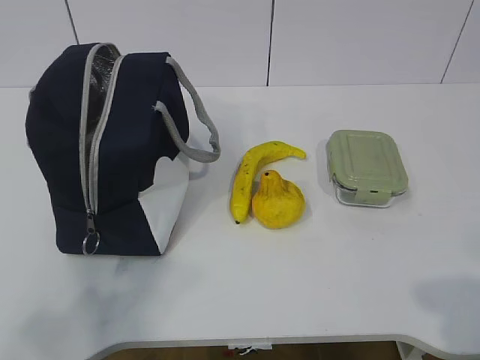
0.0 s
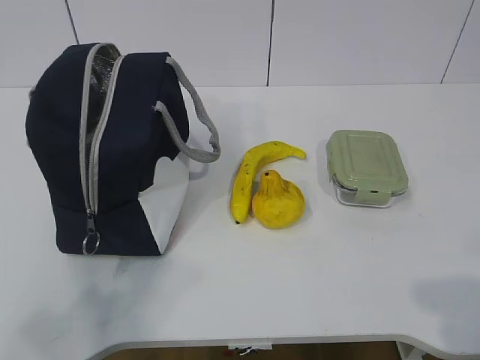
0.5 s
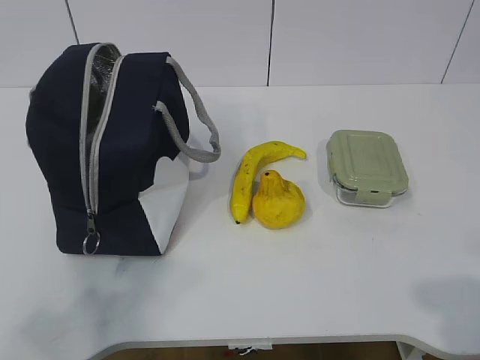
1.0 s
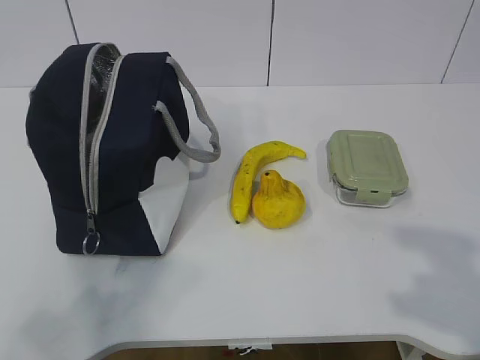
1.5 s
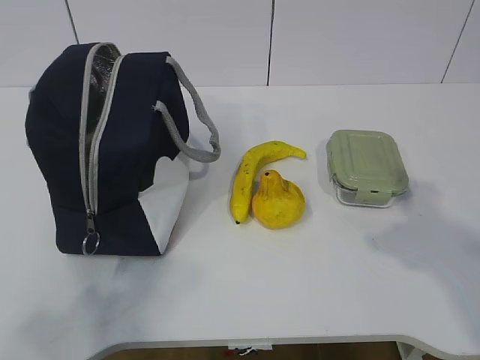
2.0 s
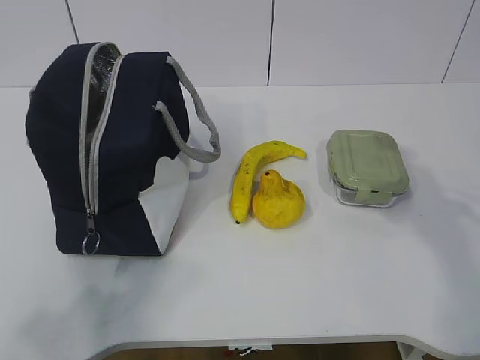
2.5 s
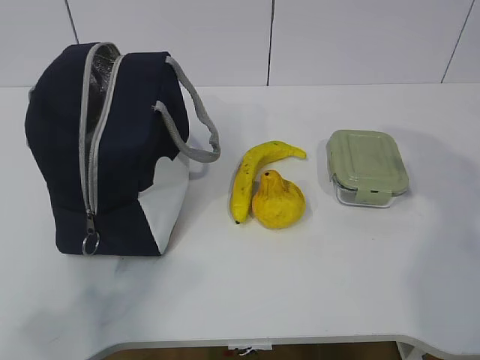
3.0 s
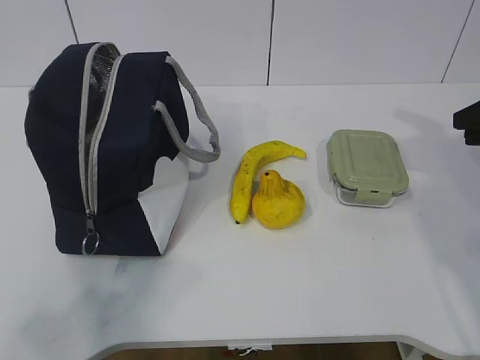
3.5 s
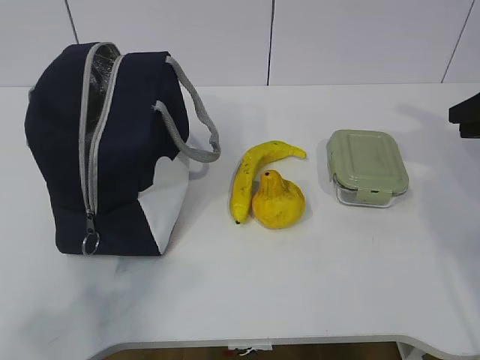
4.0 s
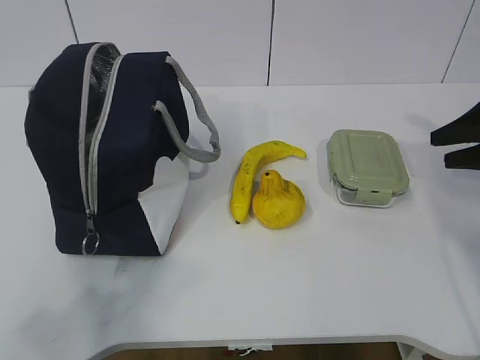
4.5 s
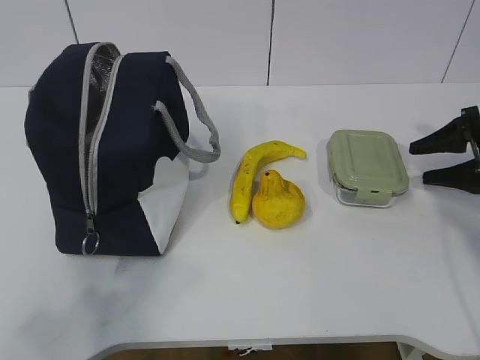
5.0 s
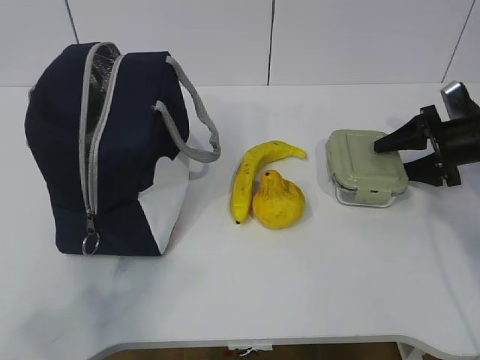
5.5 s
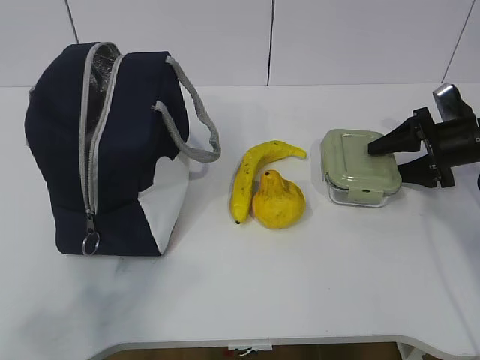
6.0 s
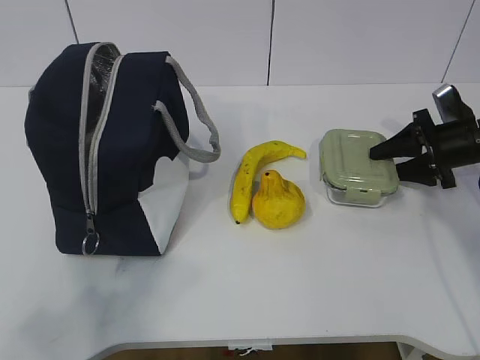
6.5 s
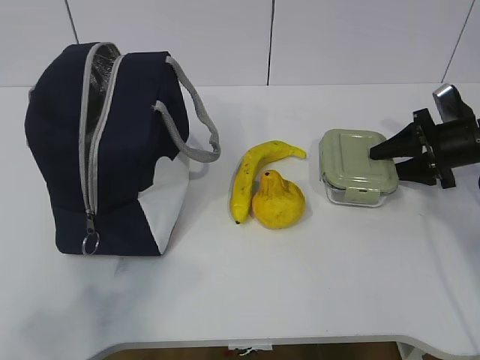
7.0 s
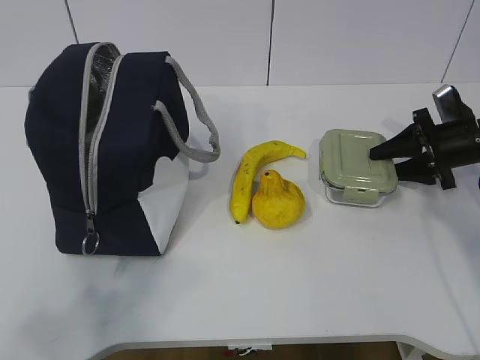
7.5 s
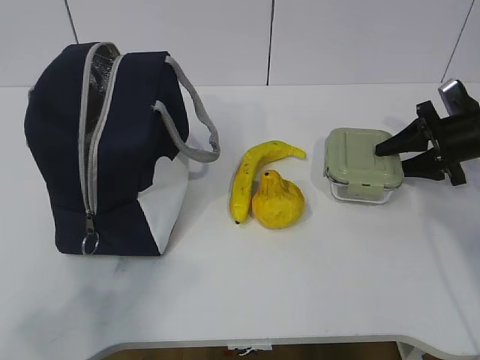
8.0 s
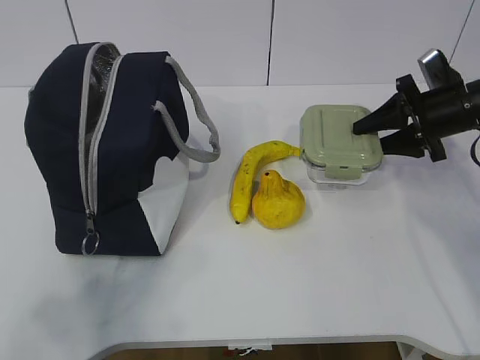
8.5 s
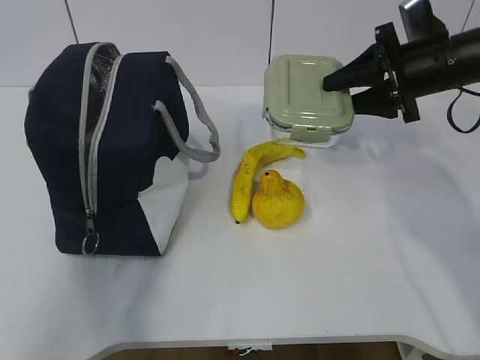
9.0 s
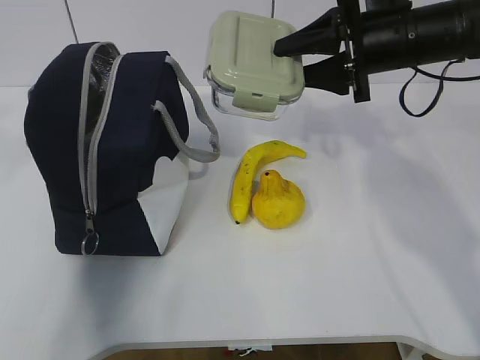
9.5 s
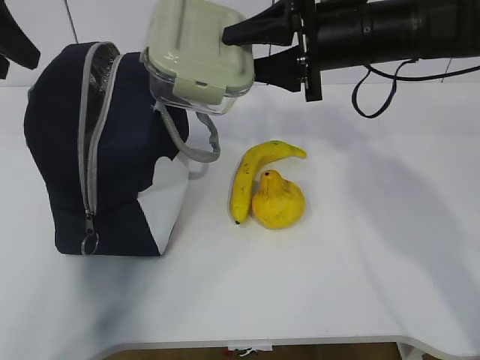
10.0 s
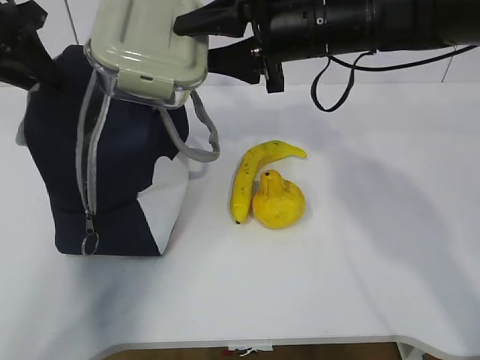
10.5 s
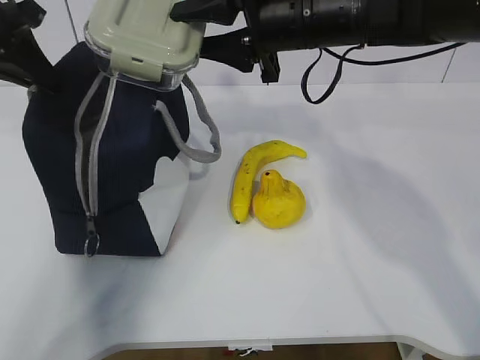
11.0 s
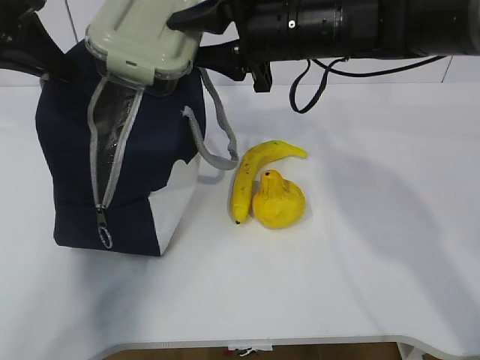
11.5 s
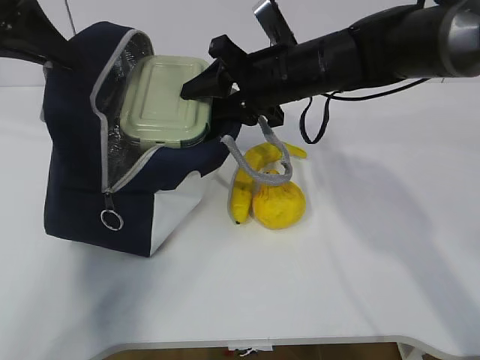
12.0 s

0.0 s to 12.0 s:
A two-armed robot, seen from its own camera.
Step, 0.0 to 6.0 s: Grab the lunch box with your right hand.
Step, 6.5 to 9.5 s: Grab the lunch bag with your left hand.
Step, 10.0 to 11.5 s: Place it into the bag with your right hand.
2.0 to 4.0 s: The right gripper goes roughly 25 cm forward and to the right.
4.0 to 6.0 s: The right gripper shifts some 15 cm downward and forward, and opens its fingers.
6.0 to 8.0 s: There are only small adjustments of the grippers.
8.0 to 10.0 s: The left gripper is displaced forward by some 35 cm, and opens, while the right gripper moves to the left and upward, roughly 25 cm.
10.0 to 12.0 s: The left gripper closes. Meanwhile the right gripper moves to the left, roughly 5 cm.

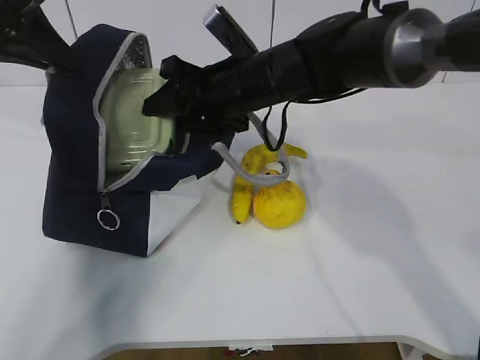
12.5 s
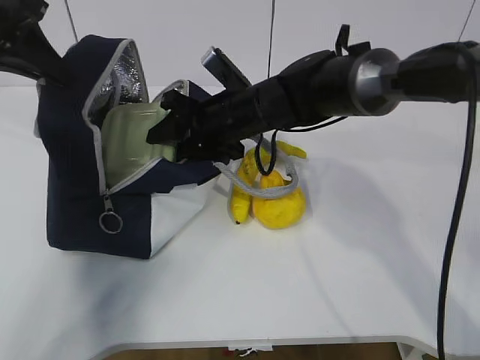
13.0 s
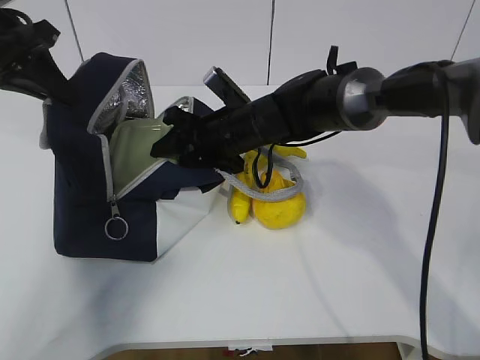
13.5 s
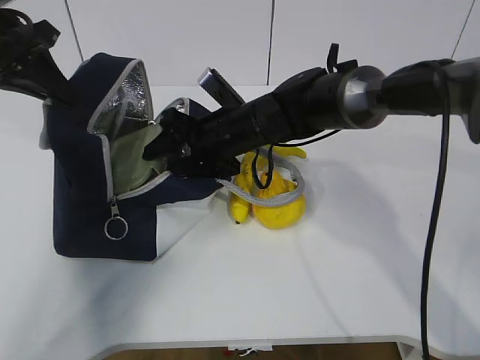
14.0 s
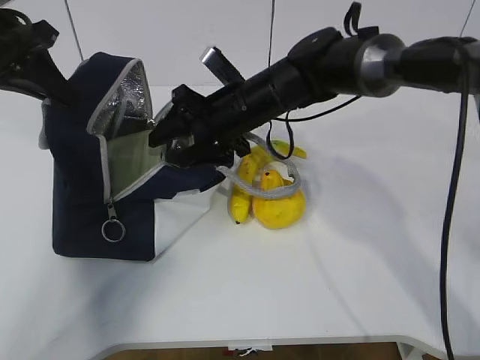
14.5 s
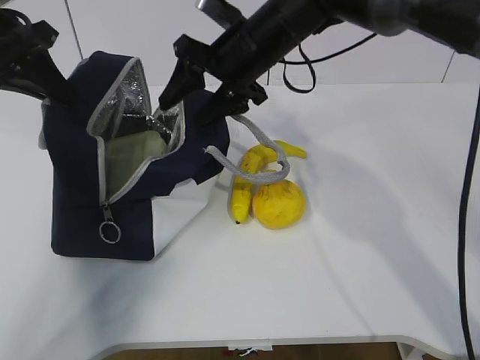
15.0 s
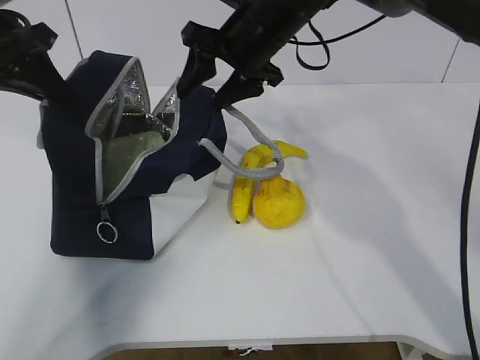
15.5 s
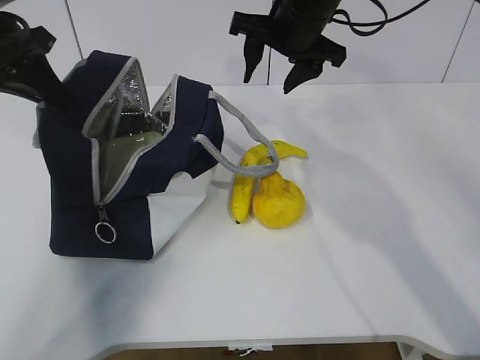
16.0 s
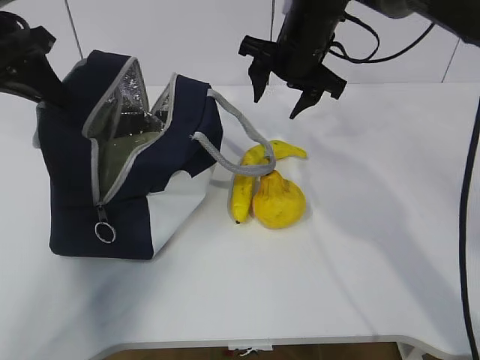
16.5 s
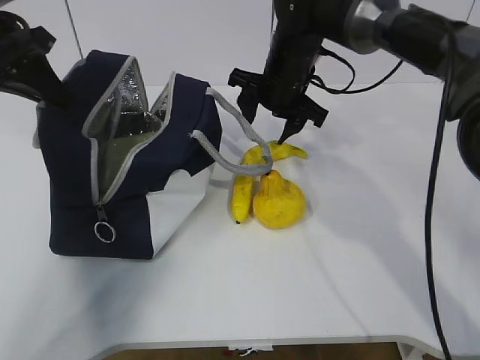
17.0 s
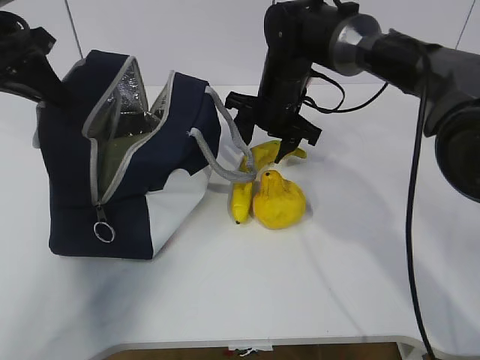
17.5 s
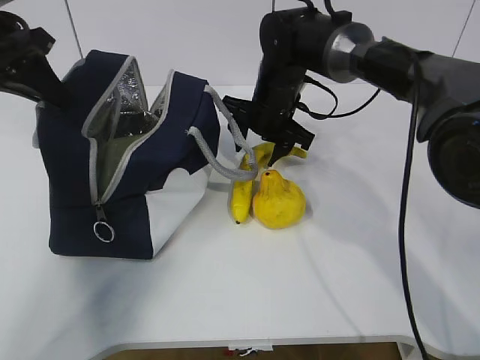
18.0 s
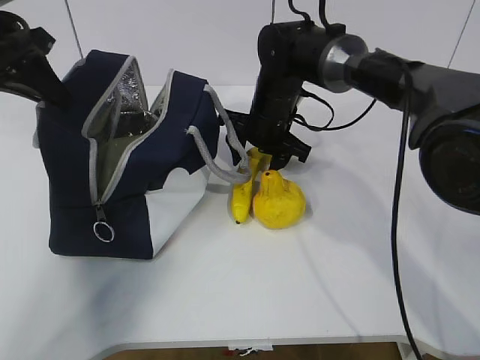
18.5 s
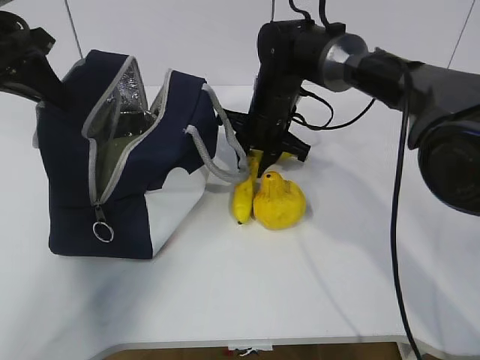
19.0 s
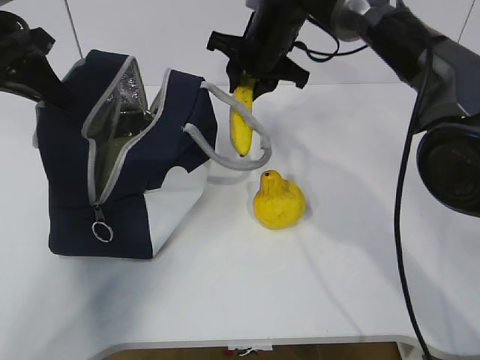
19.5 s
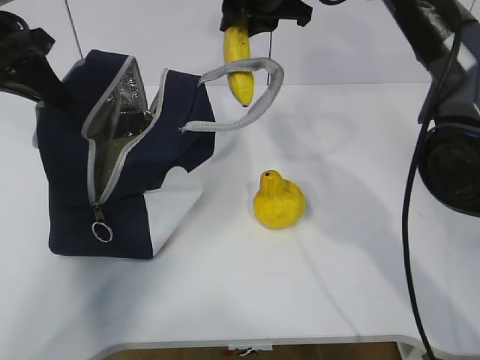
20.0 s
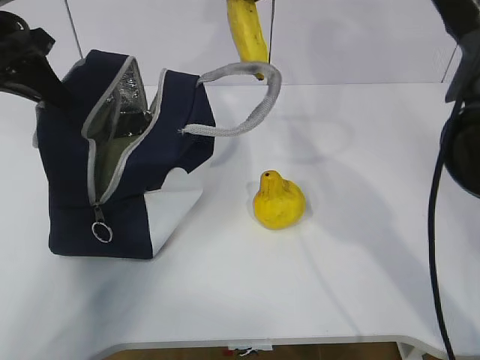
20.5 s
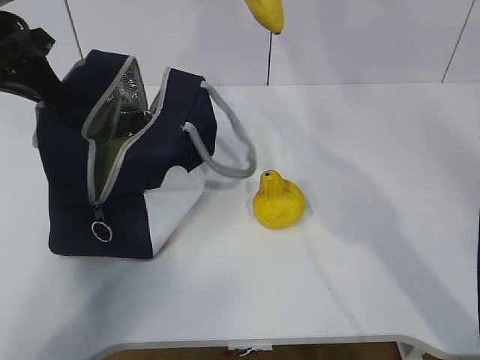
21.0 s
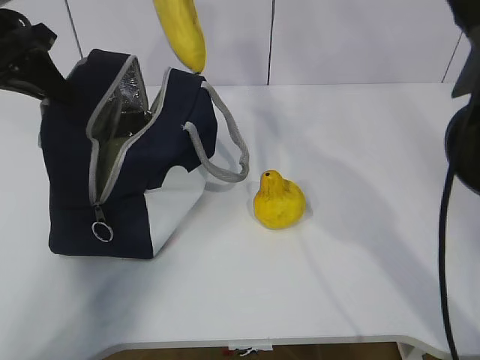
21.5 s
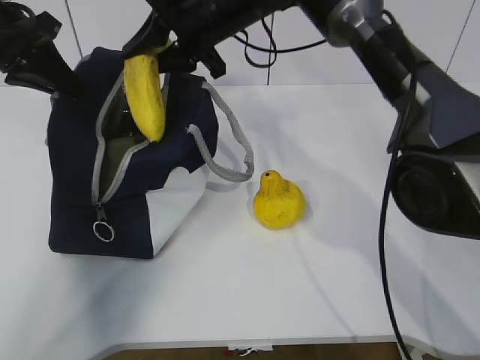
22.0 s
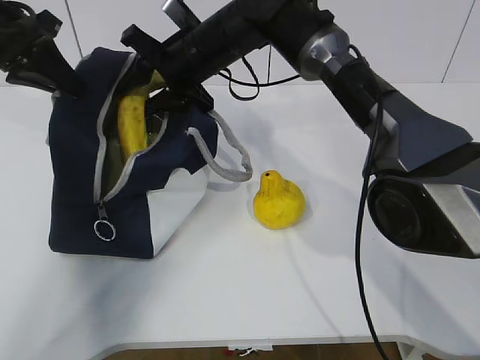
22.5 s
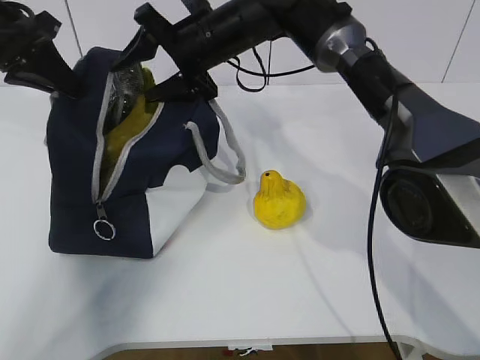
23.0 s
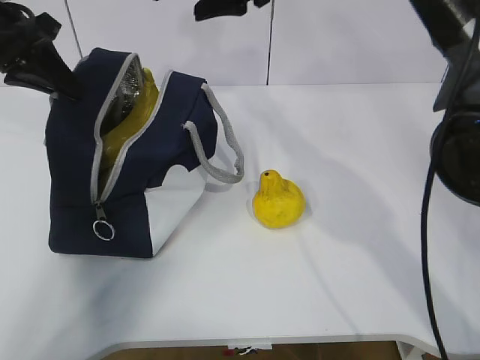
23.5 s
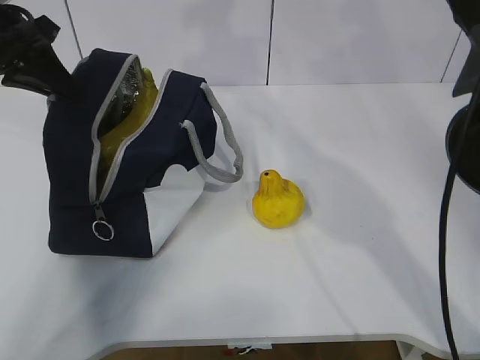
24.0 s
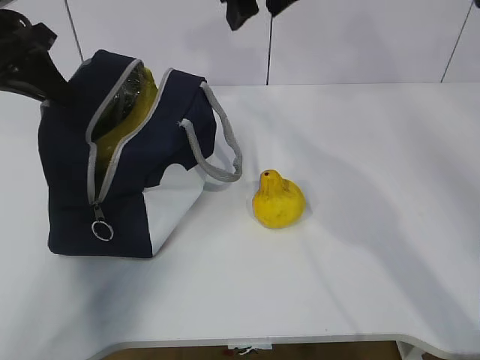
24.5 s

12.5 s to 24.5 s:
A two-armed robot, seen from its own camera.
Step, 12.5 to 15.5 s: Grab the banana with your right hand.
Step, 16.0 to 18.5 s: Place it into the bag with your right hand.
Step, 19.5 to 23.0 s: Grab the pear with your right hand.
14.5 to 16.5 s: The right gripper heads upward and to the right, covering approximately 10 cm.
16.5 to 18.5 s: The right gripper is displaced downward by roughly 10 cm.
18.5 to 20.5 s: The right gripper moves upward, roughly 20 cm, and closes up.
20.5 to 22.5 s: The right gripper goes roughly 15 cm downward and to the left.
22.5 to 24.5 s: The right gripper shifts roughly 15 cm upward and to the right.

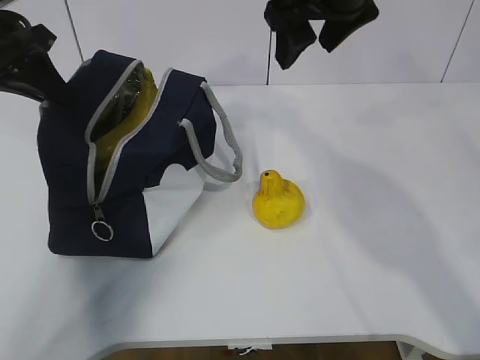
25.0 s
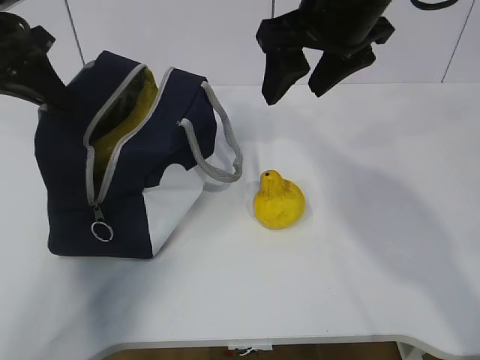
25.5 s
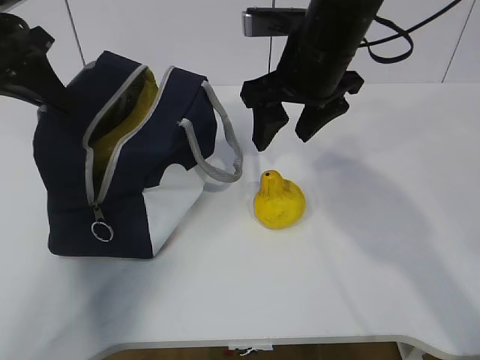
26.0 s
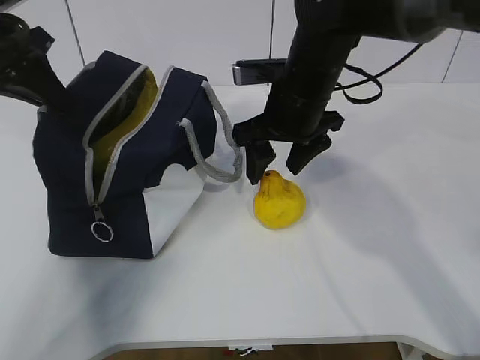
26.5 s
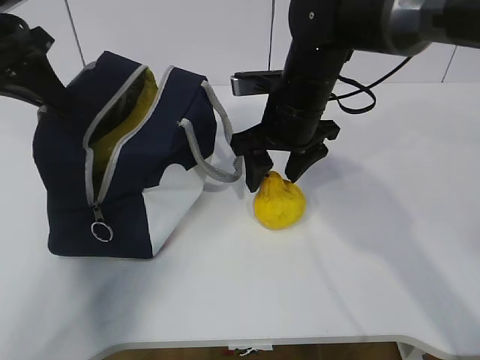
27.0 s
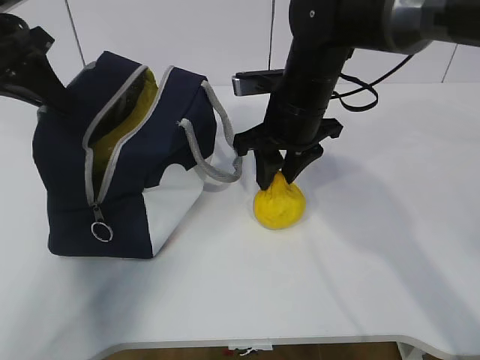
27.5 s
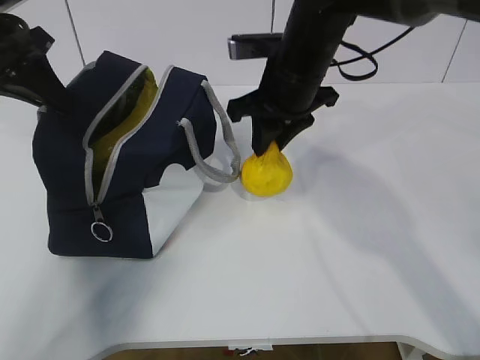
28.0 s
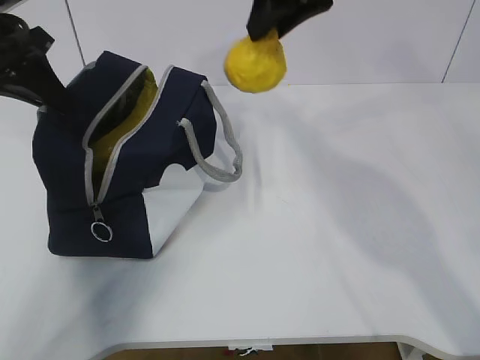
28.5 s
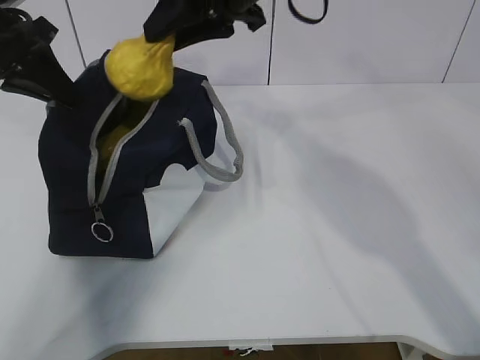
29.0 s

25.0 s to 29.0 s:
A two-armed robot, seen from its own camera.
Step, 25.0 to 26.0 s: Grab the lunch bag with your right hand.
Step, 26.5 to 27.0 s: Move the lunch bag to the right.
25.0 to 27.0 s: The right gripper is displaced downward by some 15 cm.
27.0 to 29.0 s: The right gripper shifts roughly 15 cm upward, and closes.
